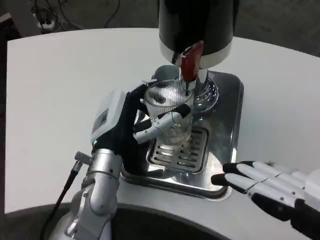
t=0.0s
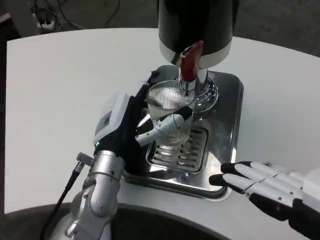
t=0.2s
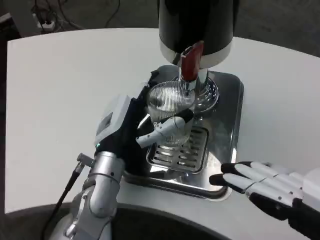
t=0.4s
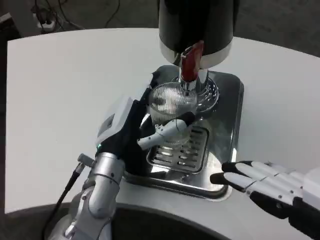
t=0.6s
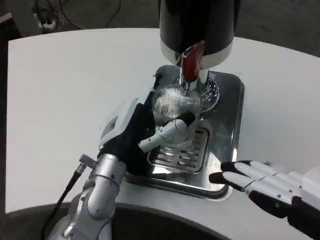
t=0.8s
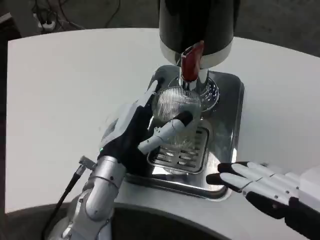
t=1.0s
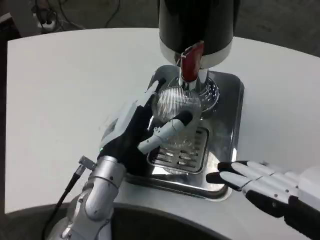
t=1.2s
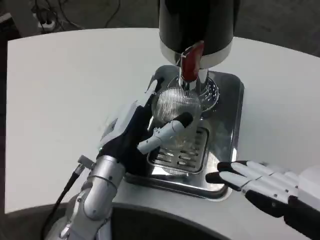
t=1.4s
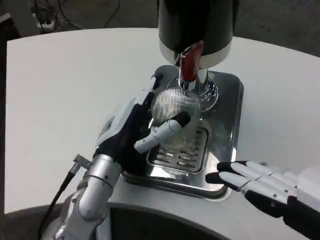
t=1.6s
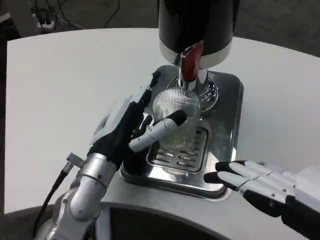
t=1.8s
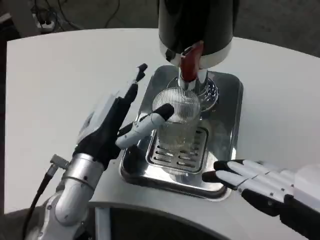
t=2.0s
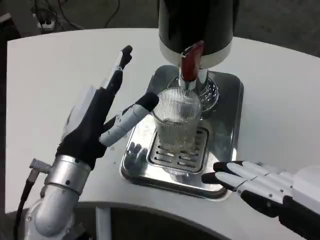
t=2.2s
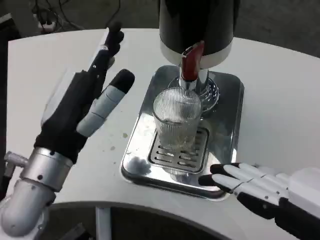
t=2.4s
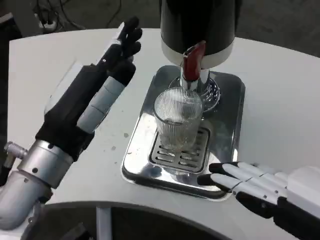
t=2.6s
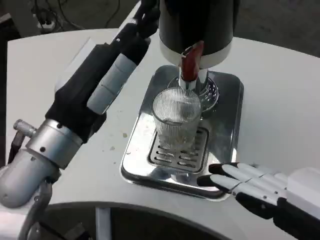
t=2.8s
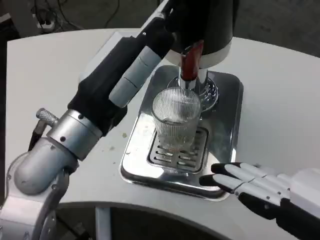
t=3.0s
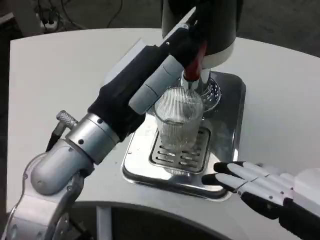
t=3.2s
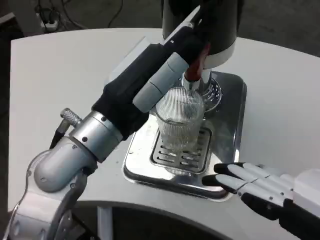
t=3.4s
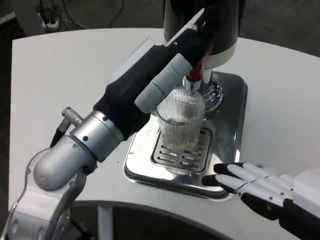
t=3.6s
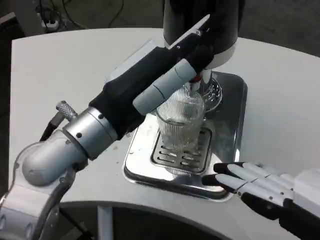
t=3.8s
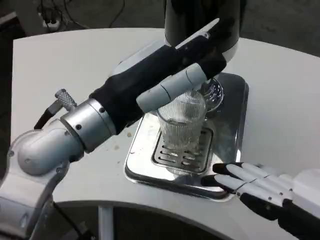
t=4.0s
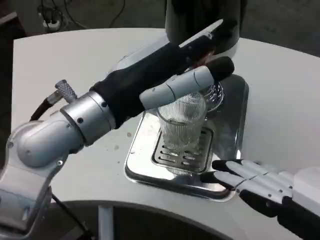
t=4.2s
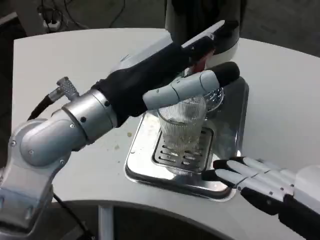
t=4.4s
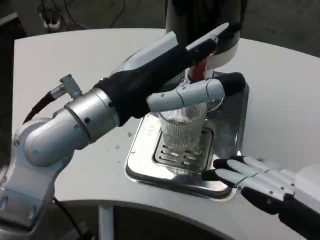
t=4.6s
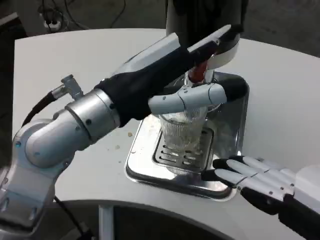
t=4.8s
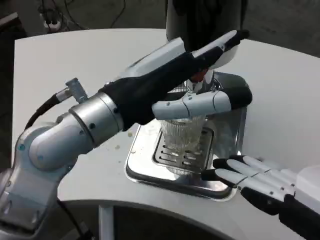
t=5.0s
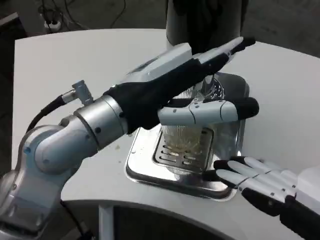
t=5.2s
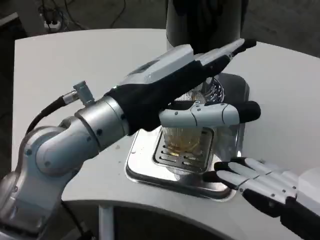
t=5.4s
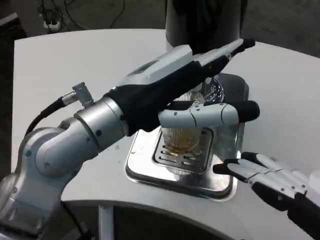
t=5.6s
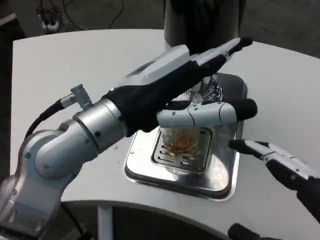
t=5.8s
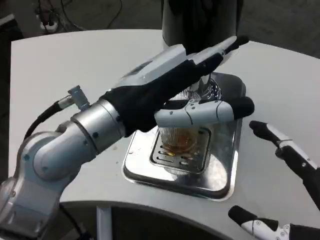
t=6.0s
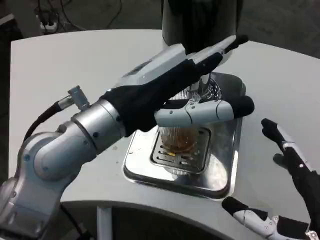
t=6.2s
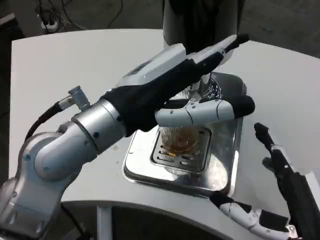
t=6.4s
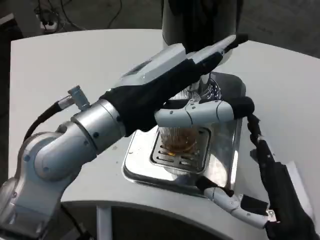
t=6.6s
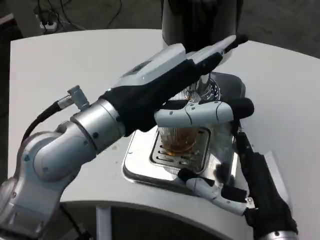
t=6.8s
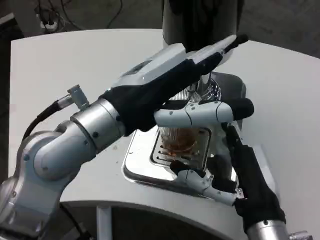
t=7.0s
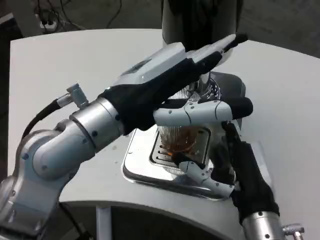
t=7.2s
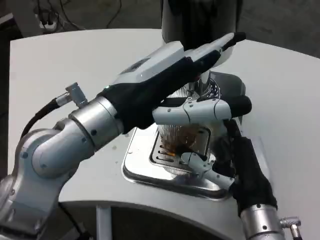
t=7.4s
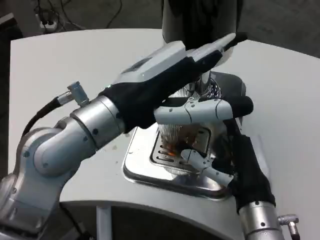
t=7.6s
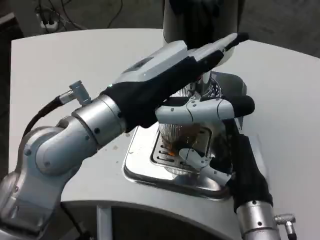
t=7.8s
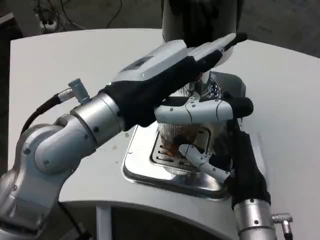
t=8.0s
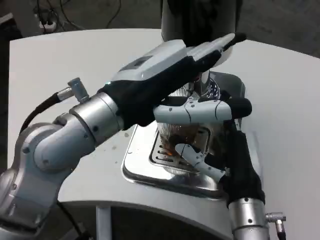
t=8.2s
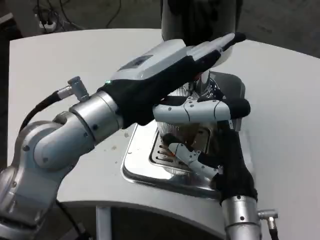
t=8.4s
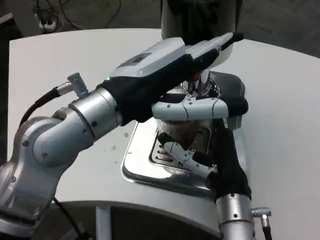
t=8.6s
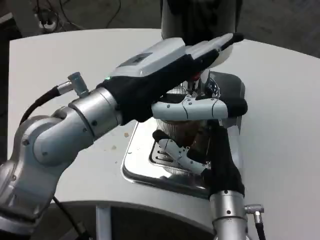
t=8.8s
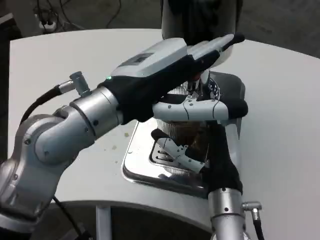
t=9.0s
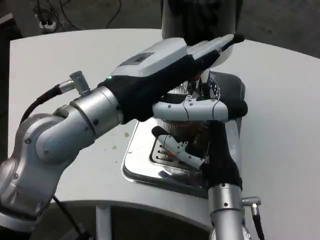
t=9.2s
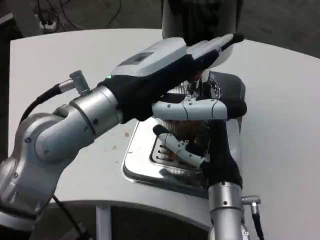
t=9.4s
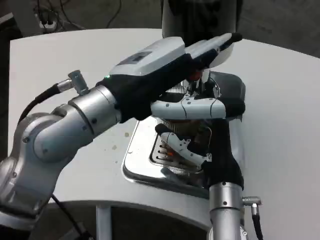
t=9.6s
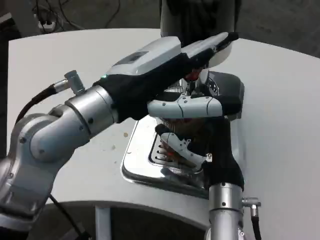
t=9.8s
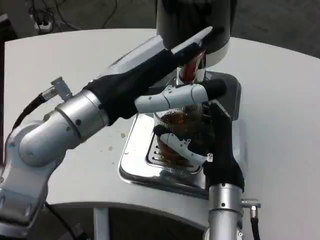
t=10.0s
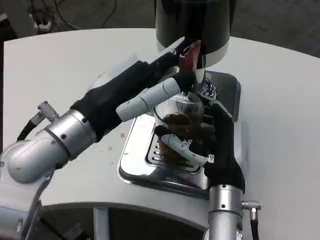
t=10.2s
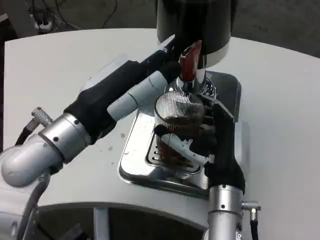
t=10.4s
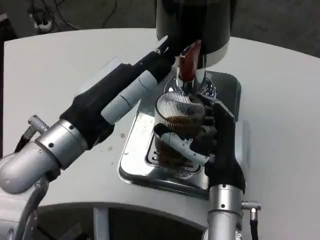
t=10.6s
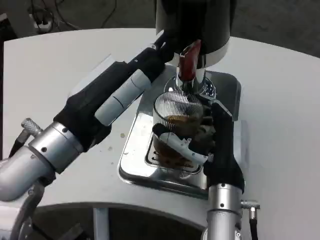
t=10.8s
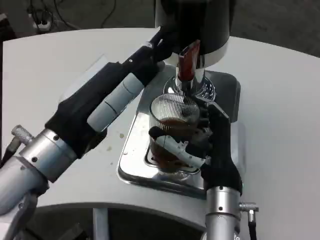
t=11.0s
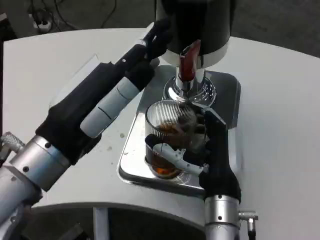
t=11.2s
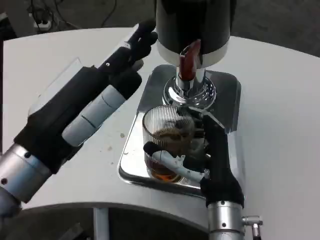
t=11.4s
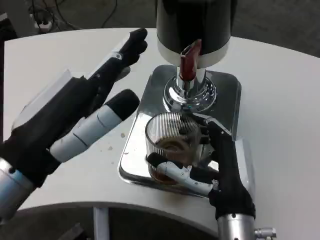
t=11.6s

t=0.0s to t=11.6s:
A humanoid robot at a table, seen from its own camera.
Task of the whole recording: Grasp the cup under the faucet to collect the drink, then remove the cup.
t=0.0s to t=1.4s: The hands move only a little.
t=1.4s to t=2.8s: The left hand shifts approximately 15 cm upward and backward.
t=2.8s to t=4.4s: The left hand ends up approximately 5 cm from where it was.
t=5.8s to t=7.2s: The right hand goes roughly 20 cm forward, to the left and downward.
t=7.2s to t=8.8s: The right hand ends up approximately 5 cm from where it was.
t=10.2s to t=11.6s: The right hand moves backward, some 5 cm. The left hand moves backward, roughly 10 cm.

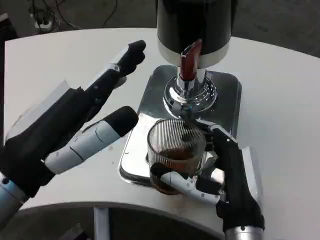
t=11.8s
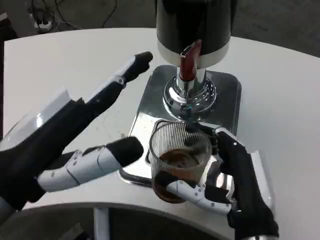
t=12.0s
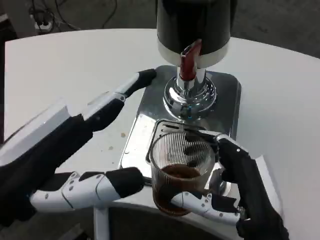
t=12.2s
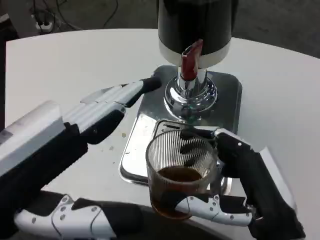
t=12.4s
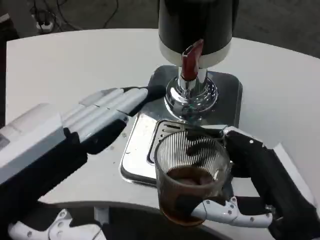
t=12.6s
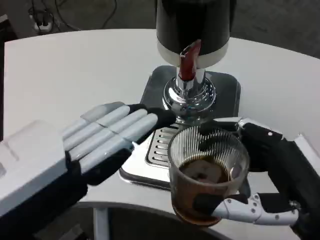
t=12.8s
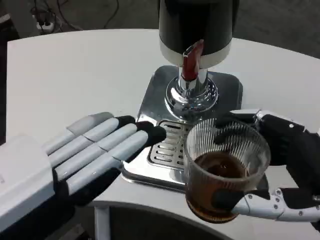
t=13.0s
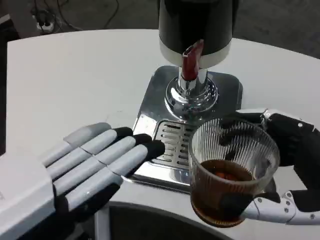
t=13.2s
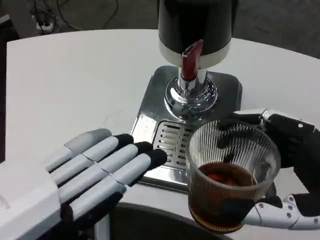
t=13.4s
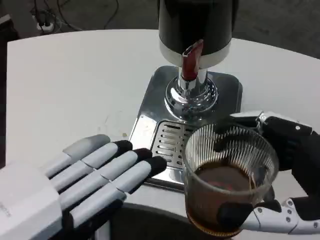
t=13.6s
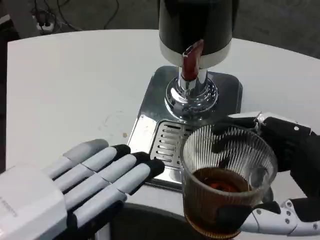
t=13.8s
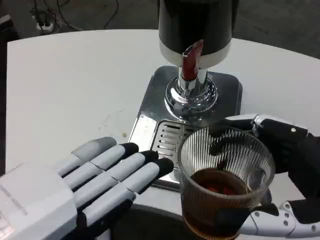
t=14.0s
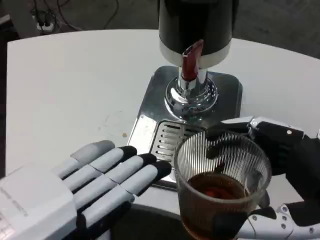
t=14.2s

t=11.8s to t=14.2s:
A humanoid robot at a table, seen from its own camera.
Task of the whole recording: Grasp the cup under the faucet to collect the drink, then remove the cup.
t=11.8s to t=13.0s: The right hand is displaced to the right, upward and backward by approximately 15 cm. Meanwhile the left hand moves backward, about 10 cm.

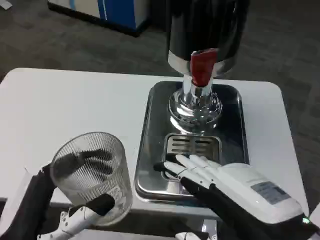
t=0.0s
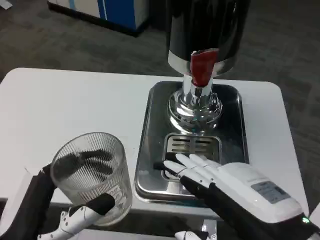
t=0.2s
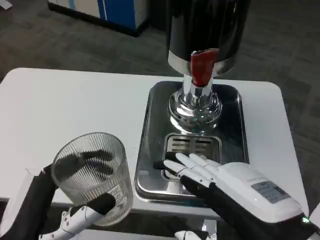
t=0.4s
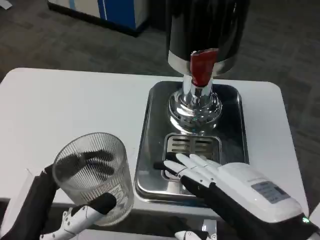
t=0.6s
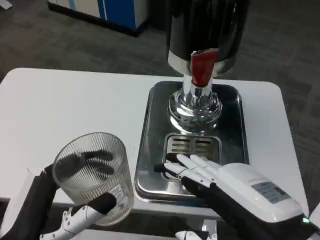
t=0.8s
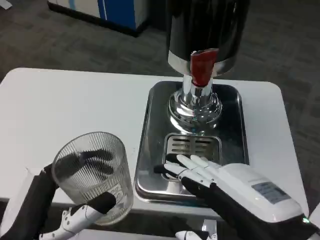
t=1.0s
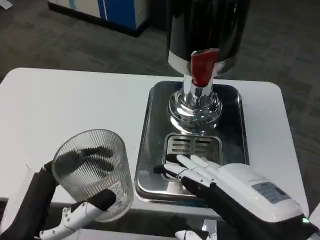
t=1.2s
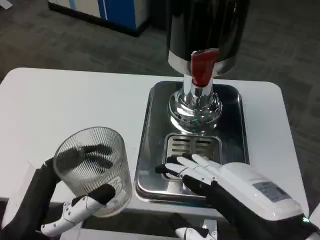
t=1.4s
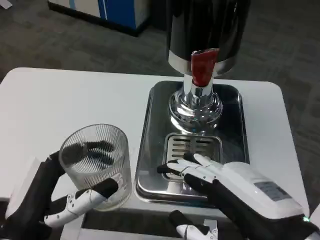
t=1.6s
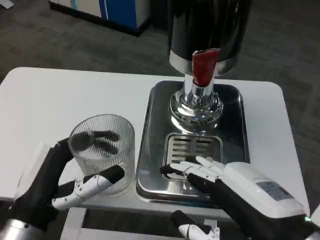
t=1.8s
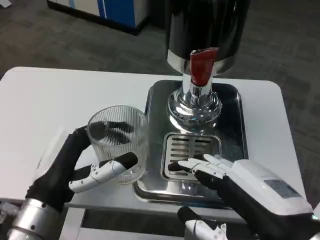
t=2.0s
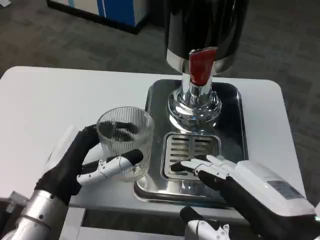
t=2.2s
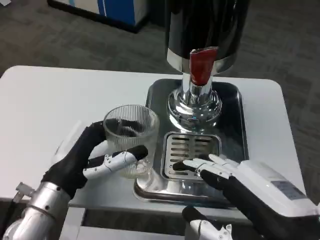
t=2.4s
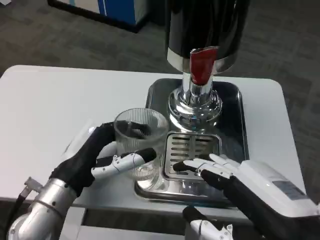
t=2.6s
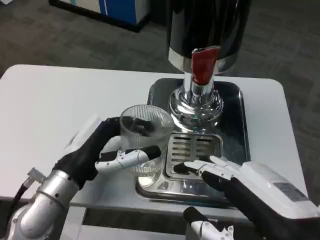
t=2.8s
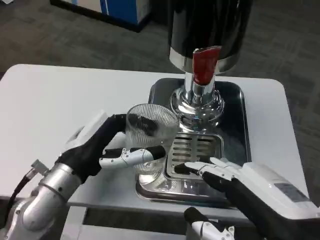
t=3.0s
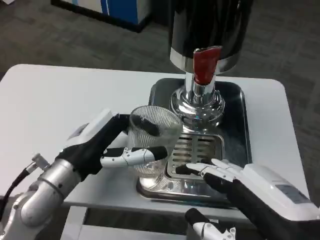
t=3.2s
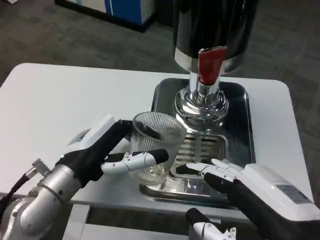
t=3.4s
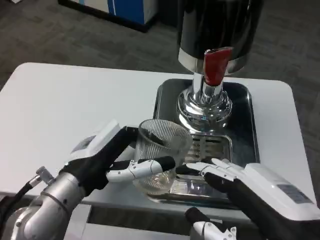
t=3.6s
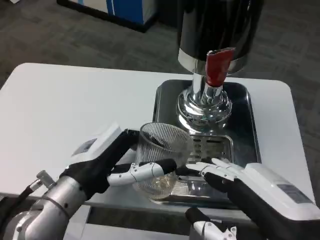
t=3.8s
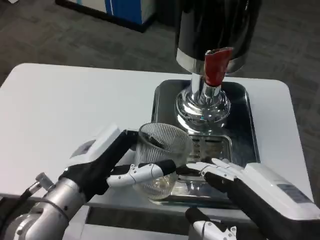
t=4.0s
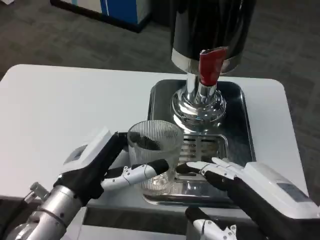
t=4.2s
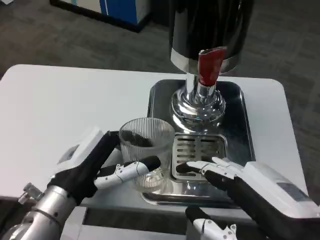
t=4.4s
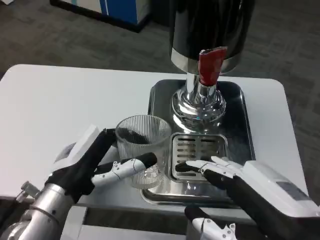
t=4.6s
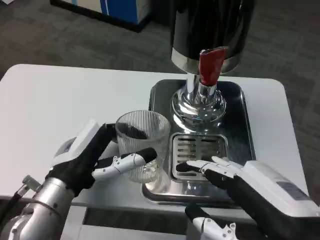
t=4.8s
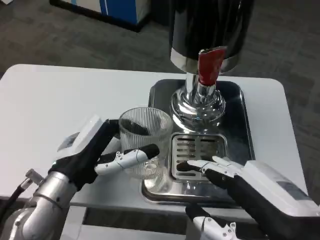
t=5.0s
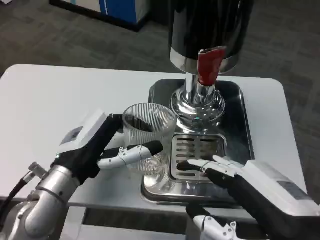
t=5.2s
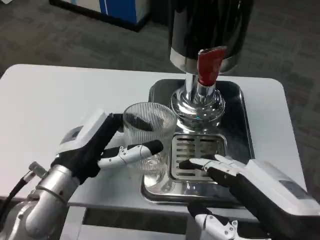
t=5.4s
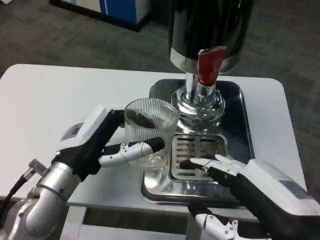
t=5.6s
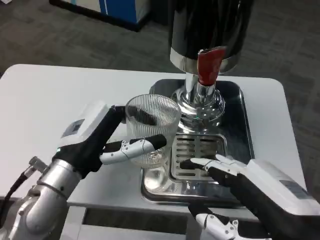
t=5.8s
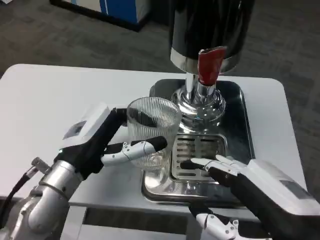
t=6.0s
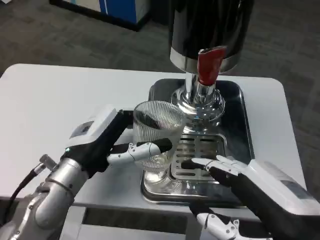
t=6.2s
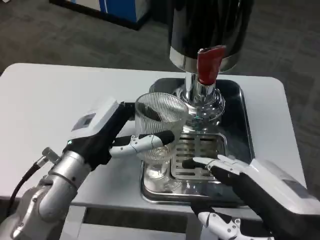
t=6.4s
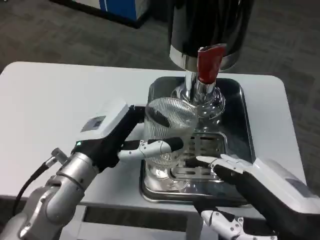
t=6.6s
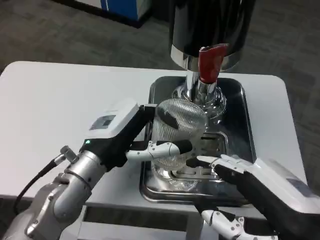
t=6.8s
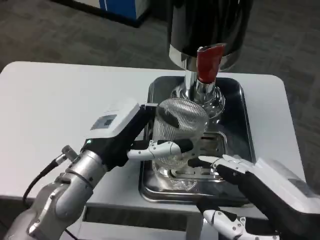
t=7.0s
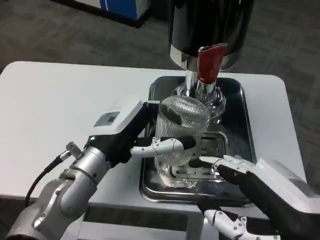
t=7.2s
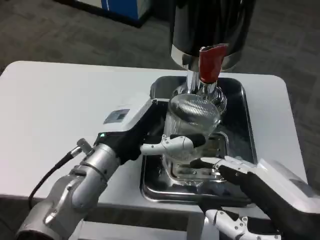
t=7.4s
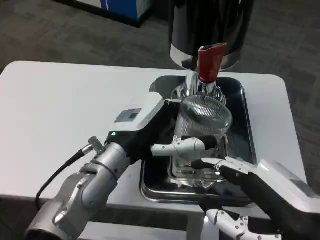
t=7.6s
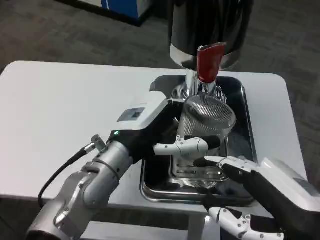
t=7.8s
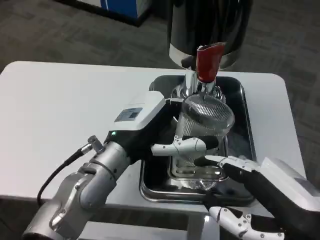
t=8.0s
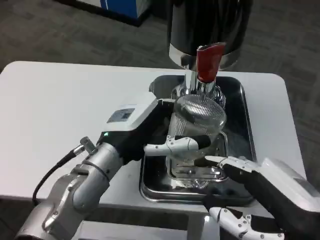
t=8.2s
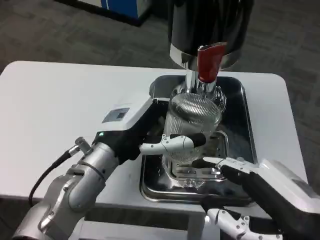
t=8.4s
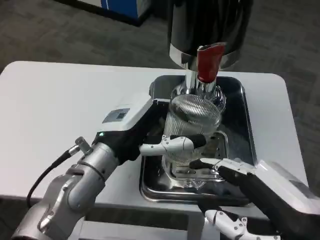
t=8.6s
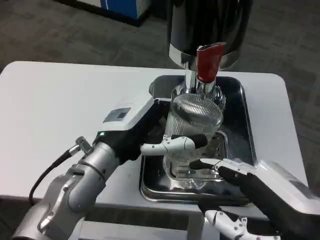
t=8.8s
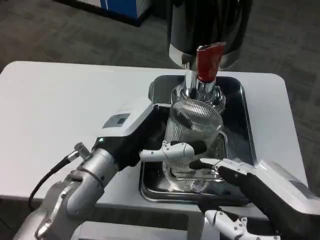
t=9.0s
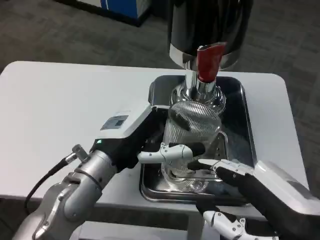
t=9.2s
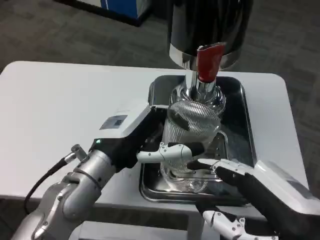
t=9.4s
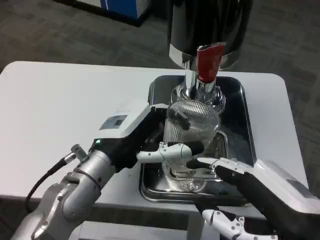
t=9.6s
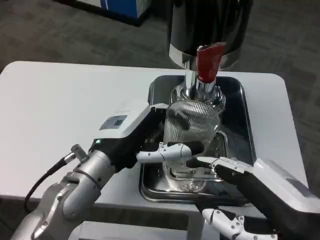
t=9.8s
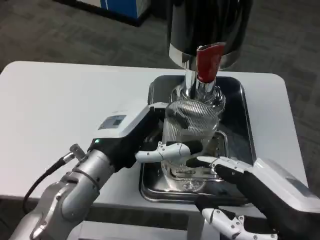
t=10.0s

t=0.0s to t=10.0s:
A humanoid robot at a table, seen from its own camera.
Task of the whole recording: Grasp the cup under the faucet to collect the drink, then remove the cup.
t=0.0s to t=1.4s: The hands move only a little.
t=1.4s to t=2.8s: The left hand moves forward, roughly 10 cm.
t=7.2s to t=8.6s: The hands make only small movements.
t=8.6s to t=10.0s: Both hands stay put.
